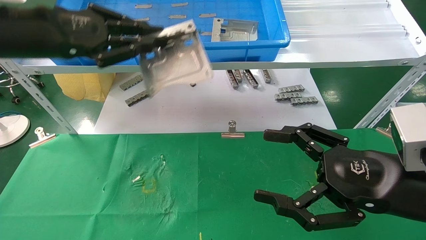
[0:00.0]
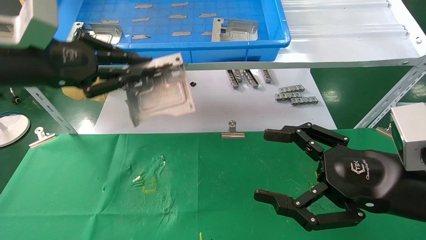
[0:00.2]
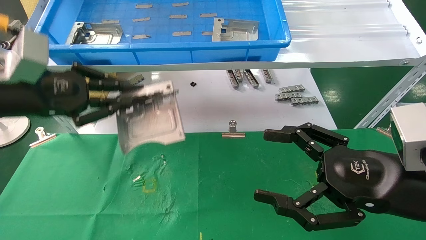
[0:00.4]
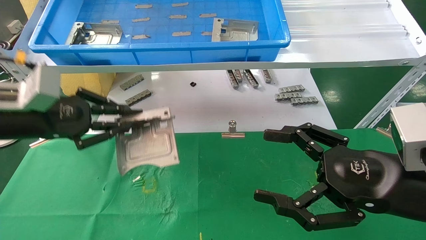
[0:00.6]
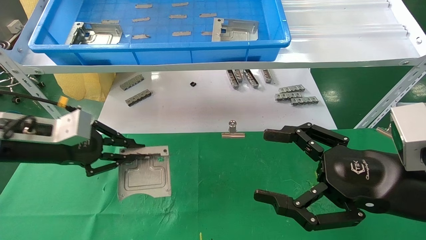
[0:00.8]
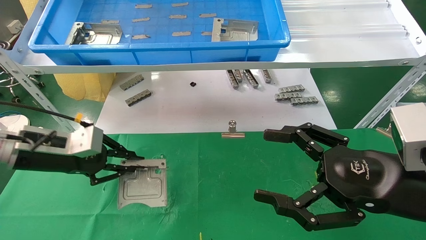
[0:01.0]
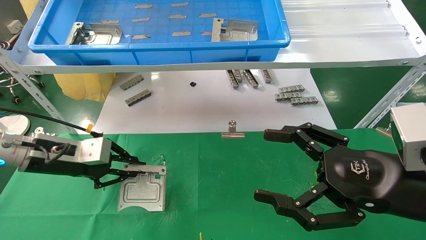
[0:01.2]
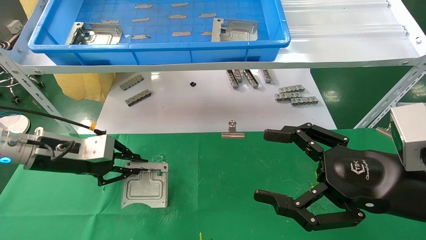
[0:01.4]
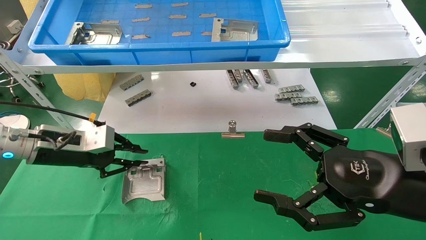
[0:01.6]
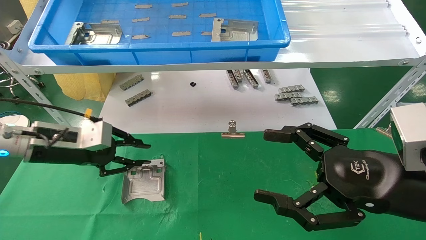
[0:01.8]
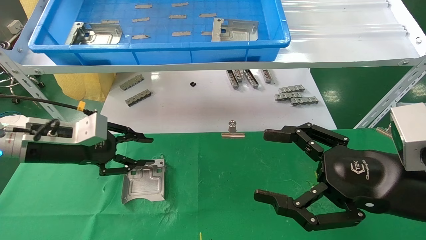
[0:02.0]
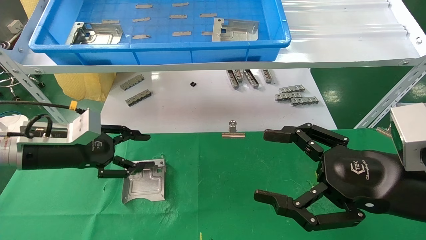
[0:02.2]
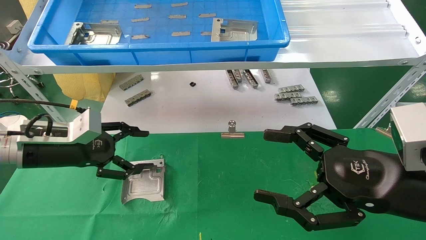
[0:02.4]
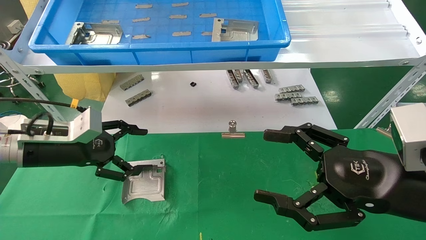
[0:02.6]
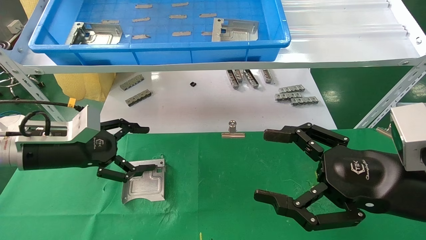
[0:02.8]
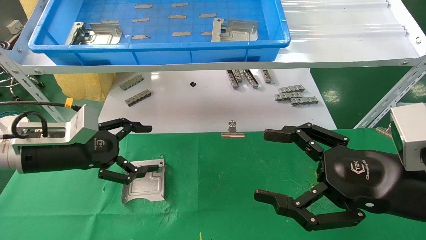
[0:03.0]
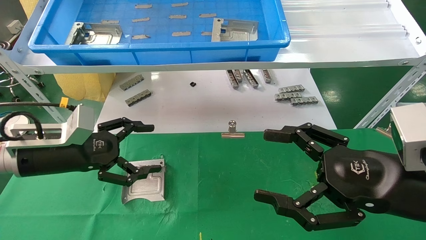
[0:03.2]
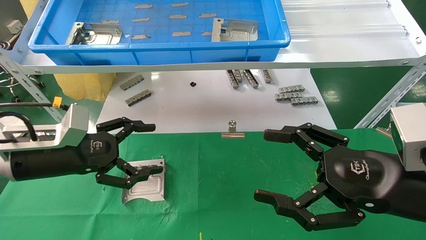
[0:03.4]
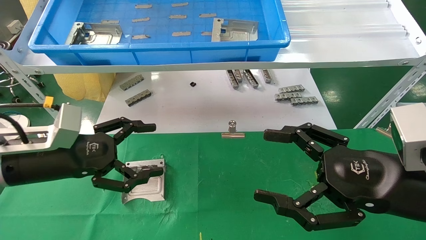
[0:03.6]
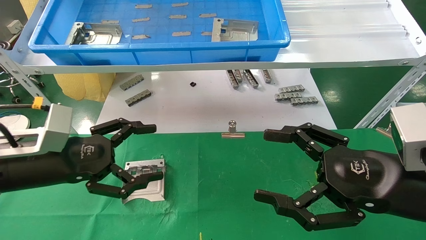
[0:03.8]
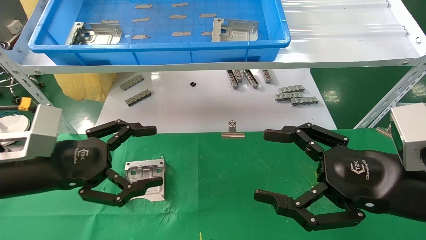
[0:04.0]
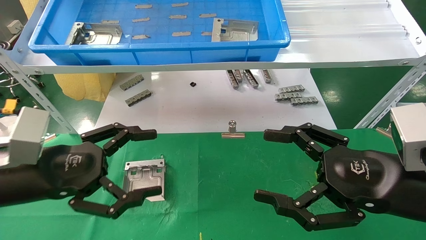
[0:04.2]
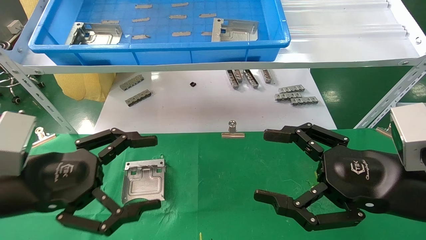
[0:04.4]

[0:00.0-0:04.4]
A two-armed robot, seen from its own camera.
Task of the whole recording: use the mechanical arm to pick up the parts and place them on the table.
Step, 0:00.0 to 0:02.6: Place the hard drive bracket into the box.
0:00.0 to 0:01.4: The left gripper moves downward, some 20 cm.
0:01.4 to 0:03.0: The left gripper opens up.
0:03.0 to 0:04.4: The left gripper travels backward by some 10 cm.
